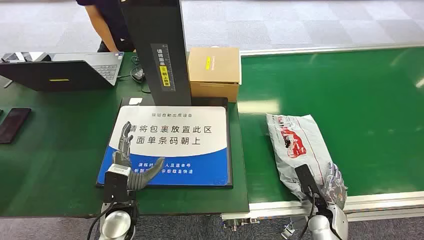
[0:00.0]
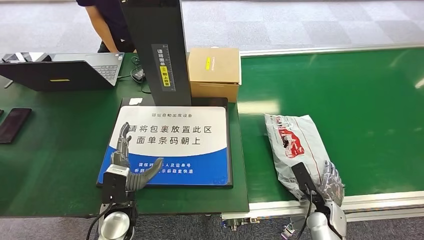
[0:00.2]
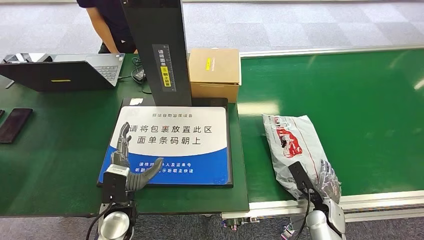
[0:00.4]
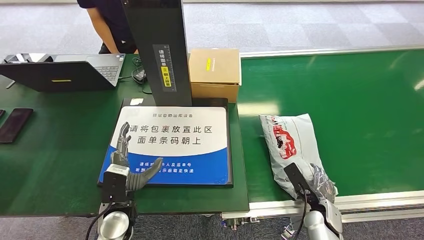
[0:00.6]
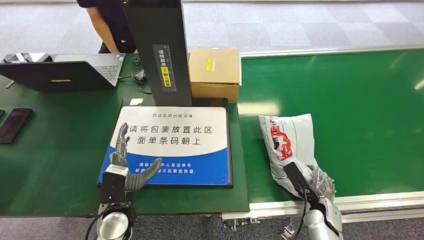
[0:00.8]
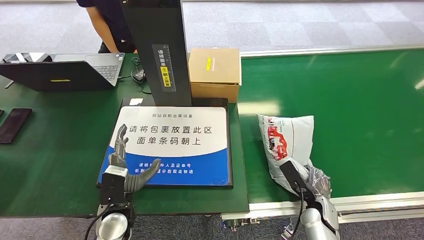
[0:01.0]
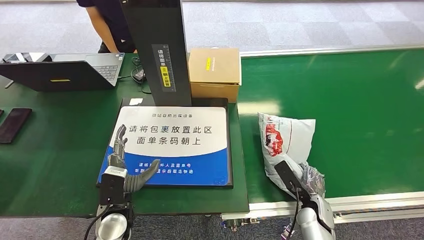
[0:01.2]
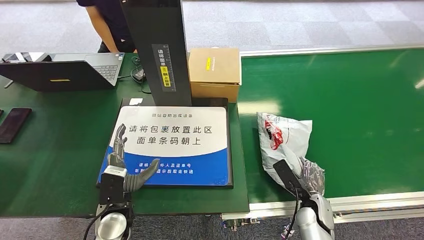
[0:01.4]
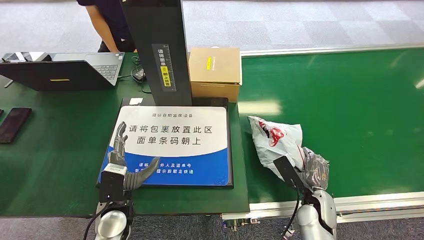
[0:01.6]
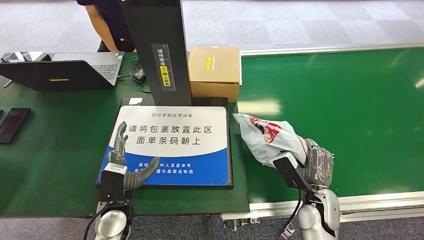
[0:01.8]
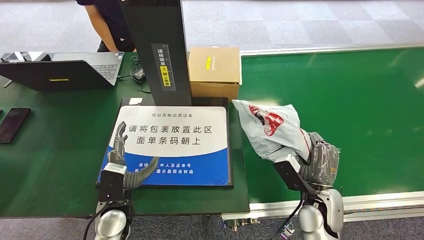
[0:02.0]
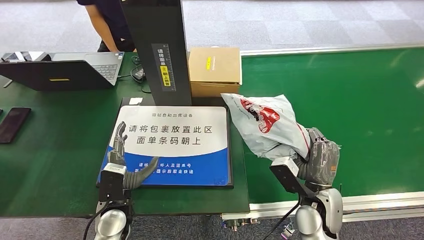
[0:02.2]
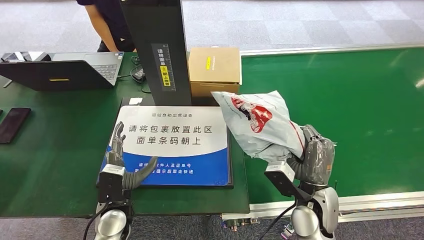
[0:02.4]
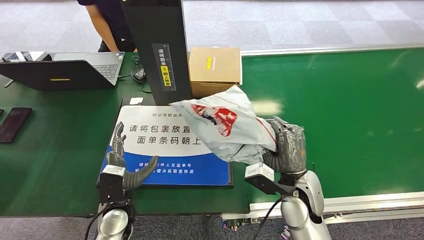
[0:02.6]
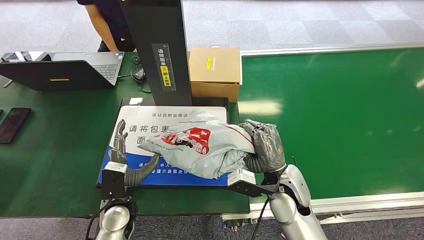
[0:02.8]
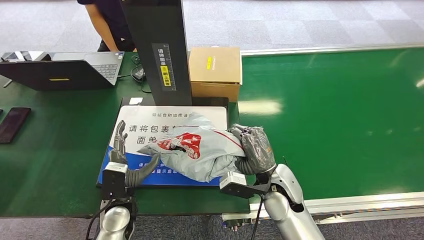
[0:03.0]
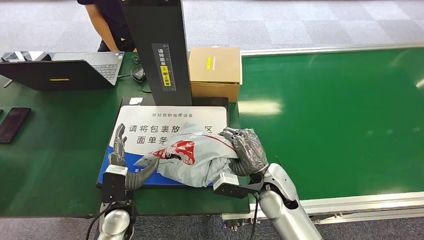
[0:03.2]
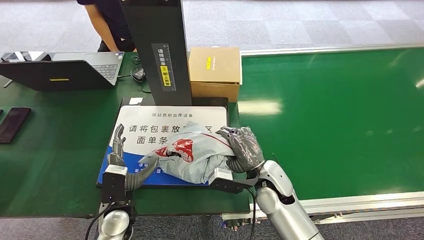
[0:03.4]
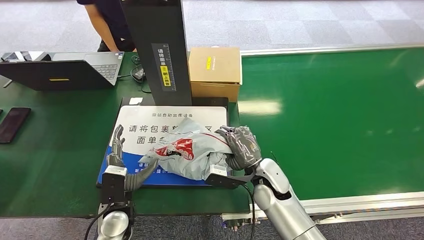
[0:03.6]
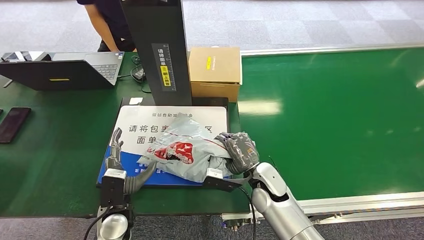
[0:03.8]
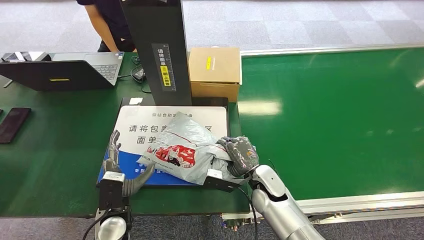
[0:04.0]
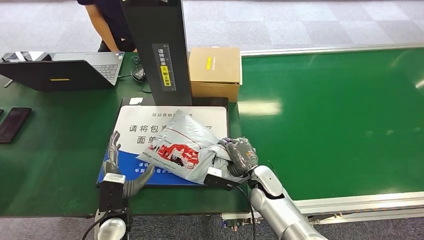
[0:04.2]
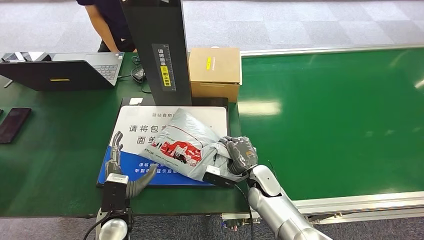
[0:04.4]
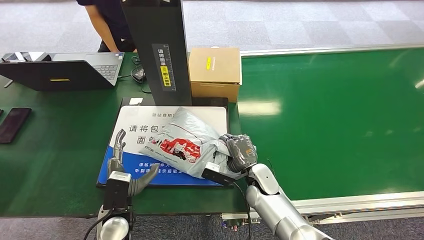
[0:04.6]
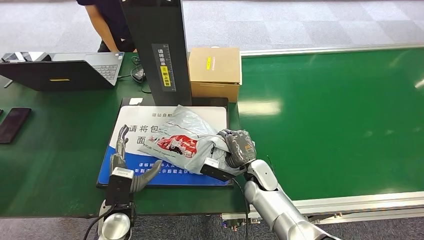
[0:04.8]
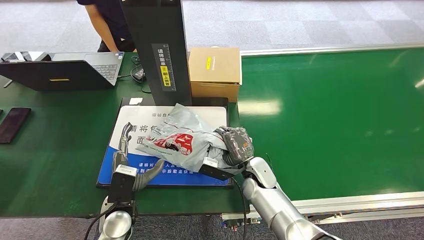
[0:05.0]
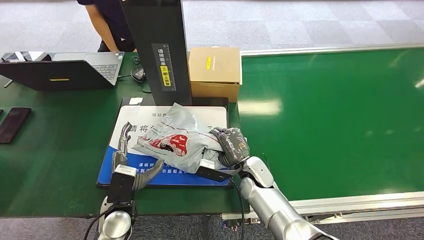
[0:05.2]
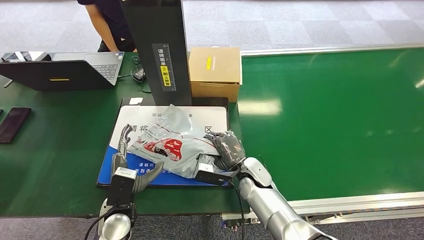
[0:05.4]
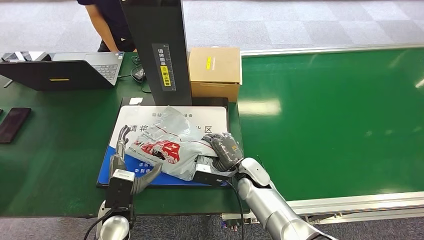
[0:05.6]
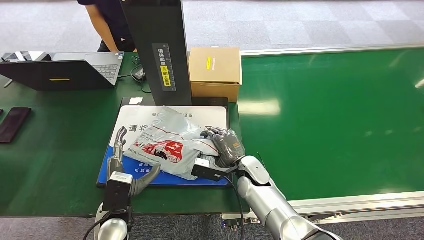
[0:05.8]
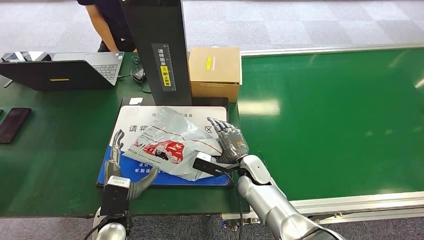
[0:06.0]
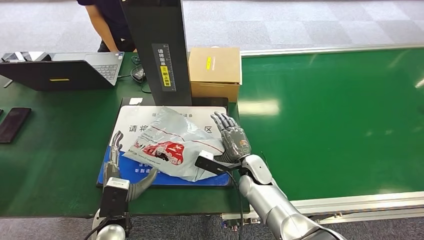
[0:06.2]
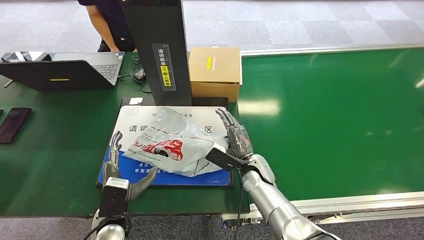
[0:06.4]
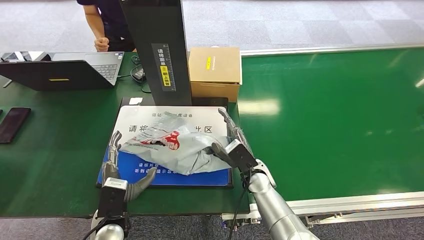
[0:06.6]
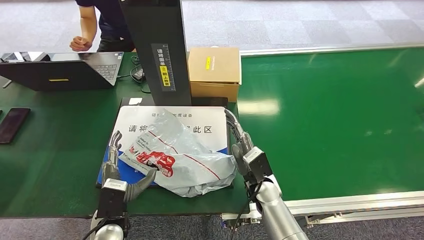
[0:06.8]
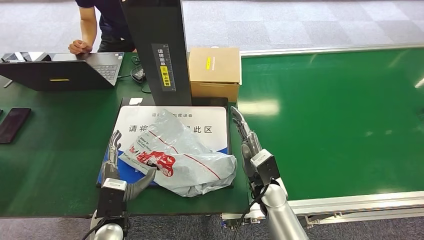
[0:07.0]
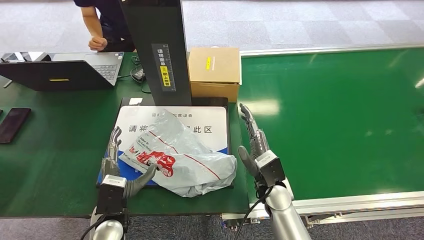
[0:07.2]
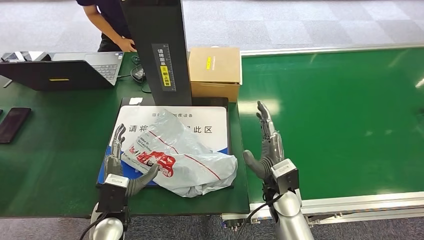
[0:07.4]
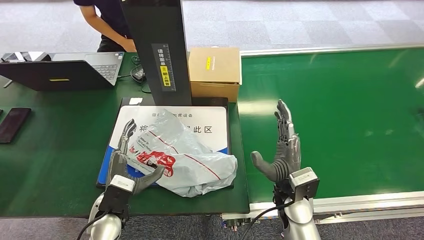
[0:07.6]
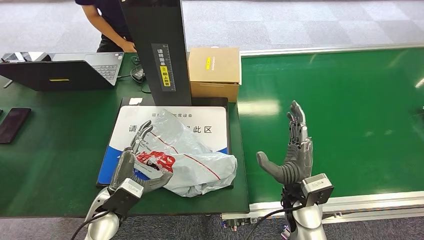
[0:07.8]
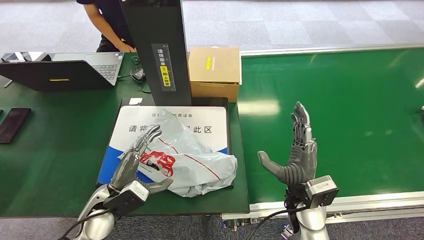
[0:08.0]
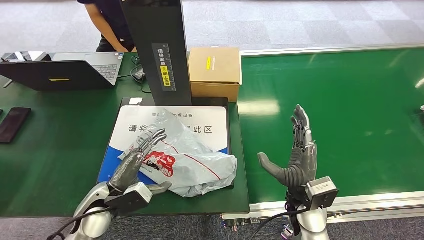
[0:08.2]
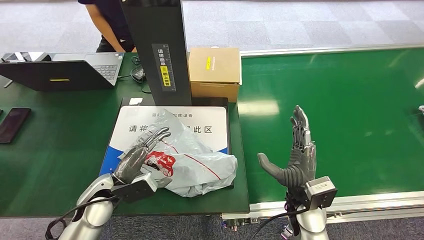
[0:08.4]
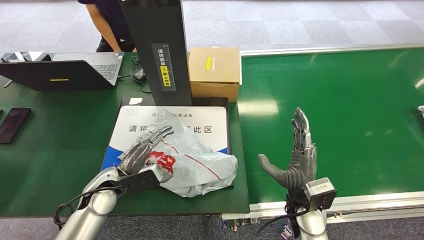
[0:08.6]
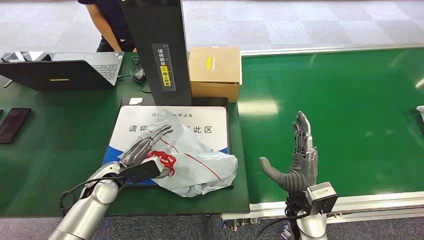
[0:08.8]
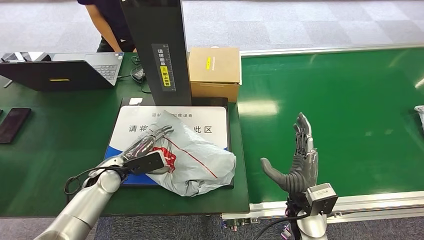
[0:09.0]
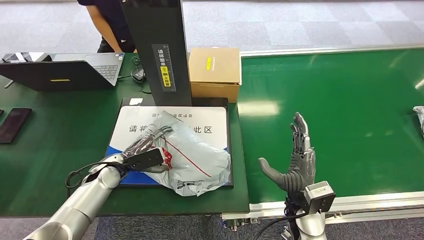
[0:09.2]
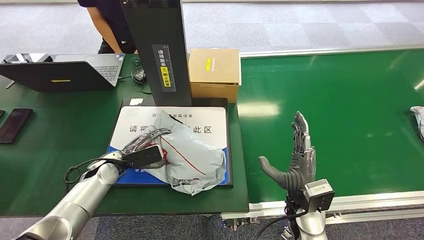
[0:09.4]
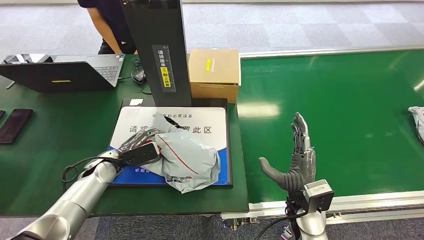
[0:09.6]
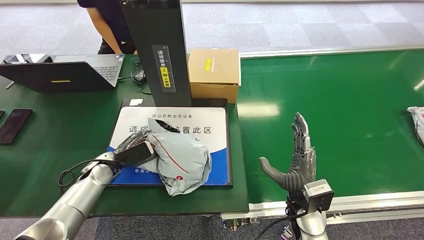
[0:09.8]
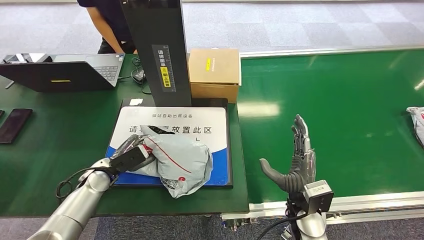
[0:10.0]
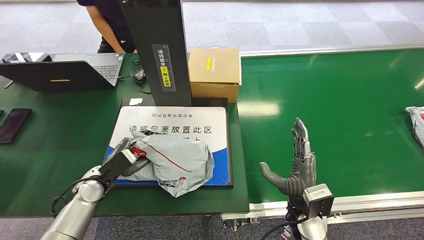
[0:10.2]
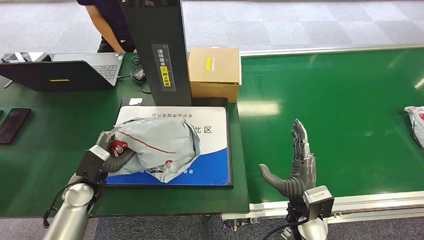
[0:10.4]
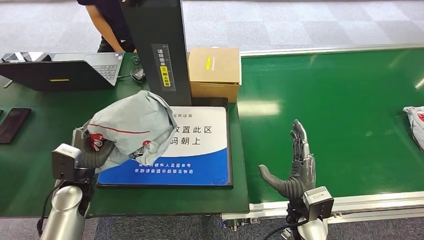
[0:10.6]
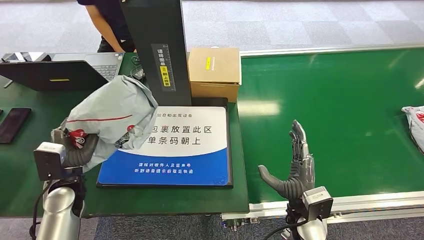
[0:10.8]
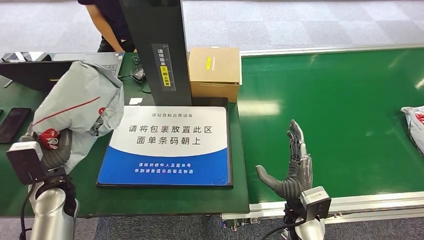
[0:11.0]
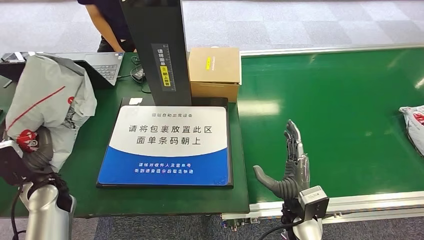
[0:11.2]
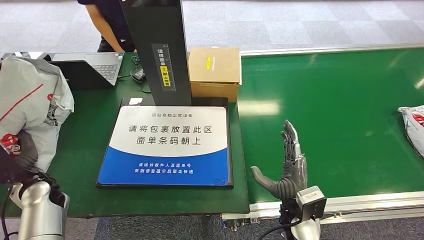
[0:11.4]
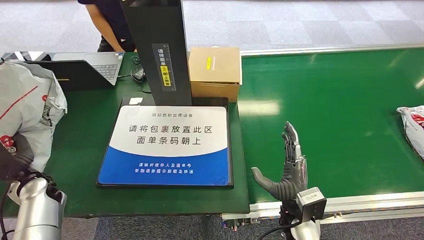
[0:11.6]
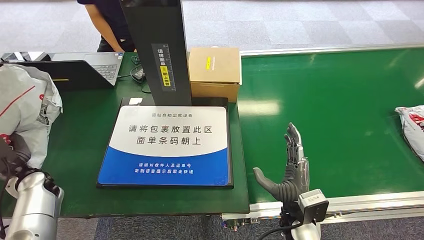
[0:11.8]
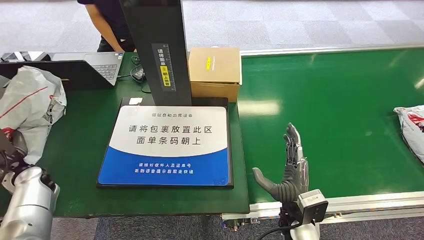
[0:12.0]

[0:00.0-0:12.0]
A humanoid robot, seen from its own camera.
Step, 0:00.0 to 0:02.0: Pick up the package from the conveyor belt.
Step, 0:02.4 to 0:07.8: Place the package onto the inbound machine.
Step, 0:08.2 to 0:11.0: Pick up the package from the inbound machine.
0:01.6 to 0:03.0: The right hand travels to the left and upward by approximately 15 cm.
0:03.0 to 0:04.4: The right hand is displaced downward by roughly 10 cm.
0:04.4 to 0:06.0: The hands move only a little.
0:06.0 to 0:07.6: The right hand heads backward, to the right and upward, covering about 15 cm.
0:07.6 to 0:09.0: The left hand heads forward and to the left, covering some 15 cm.
0:09.0 to 0:10.4: The left hand changes place by about 5 cm.
0:10.4 to 0:12.0: The left hand heads to the left, covering about 15 cm.

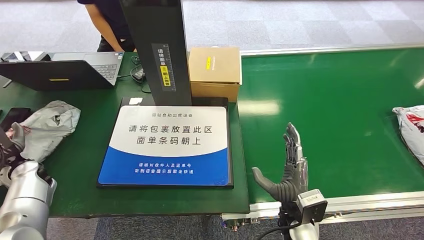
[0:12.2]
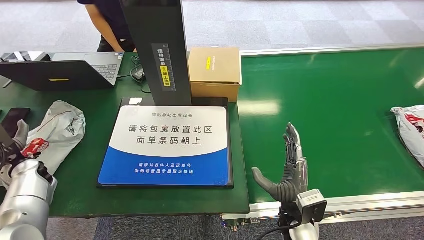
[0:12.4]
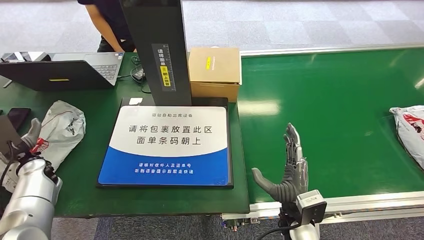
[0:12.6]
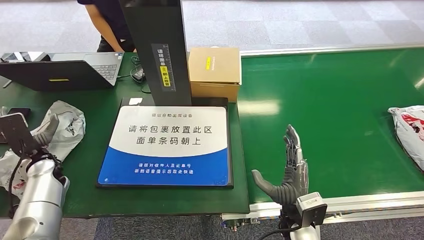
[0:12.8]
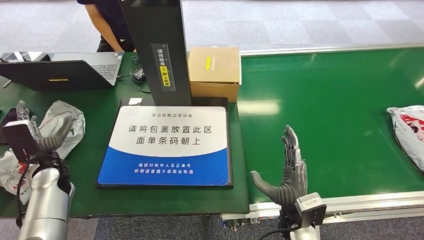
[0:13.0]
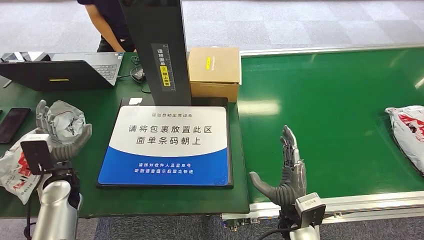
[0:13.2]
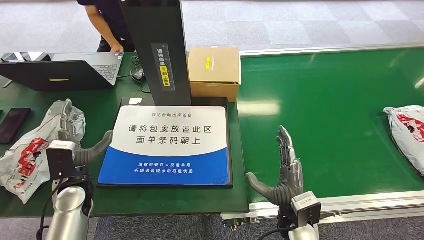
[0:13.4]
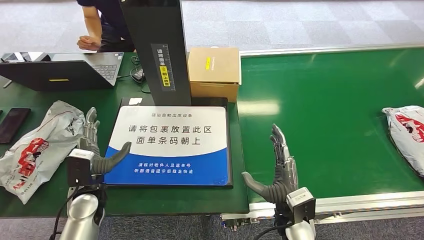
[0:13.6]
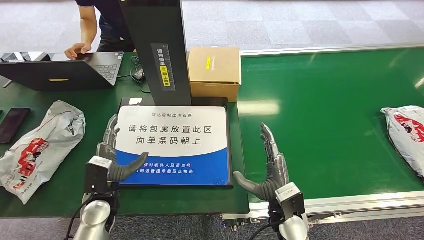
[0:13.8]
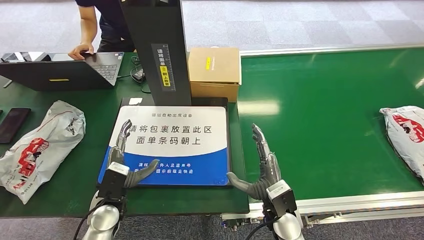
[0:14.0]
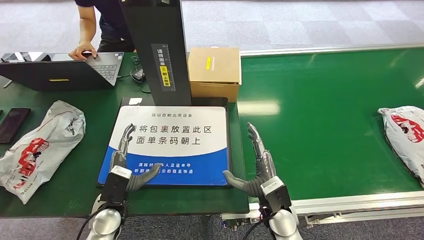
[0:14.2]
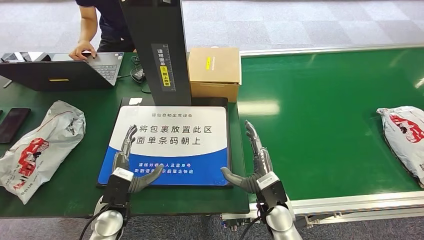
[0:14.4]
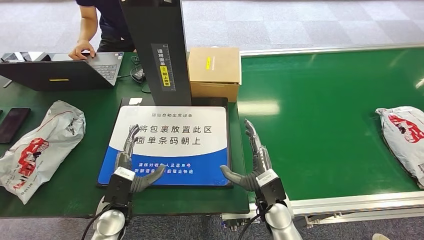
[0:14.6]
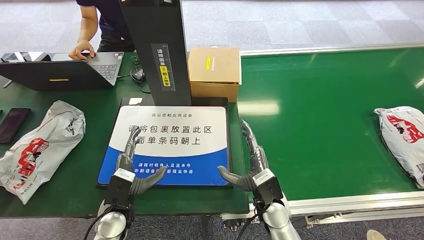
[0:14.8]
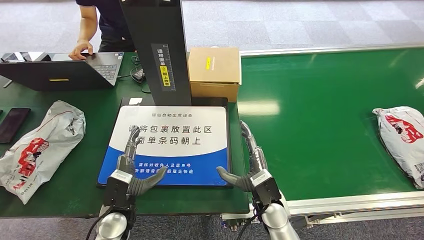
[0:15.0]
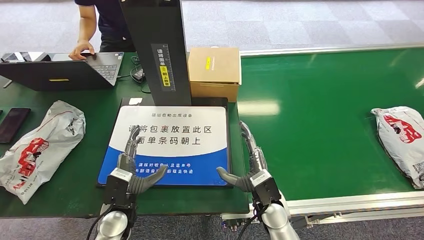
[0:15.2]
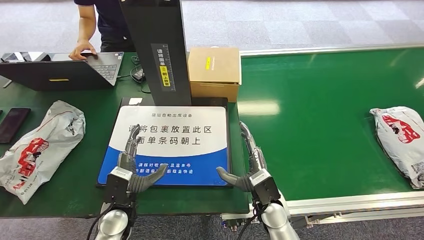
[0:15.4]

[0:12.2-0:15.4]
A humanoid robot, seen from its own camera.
Step, 0:12.2 to 0:15.4: Place the package into the parcel locker.
0:12.2 to 0:13.8: The left hand shifts approximately 25 cm to the right.
0:13.8 to 0:15.4: The left hand ends up some 5 cm from where it was.
